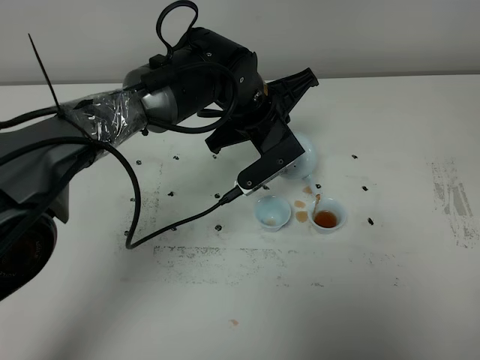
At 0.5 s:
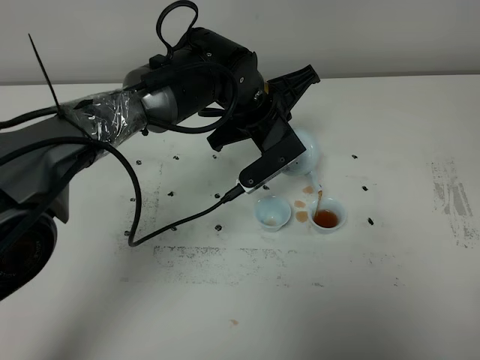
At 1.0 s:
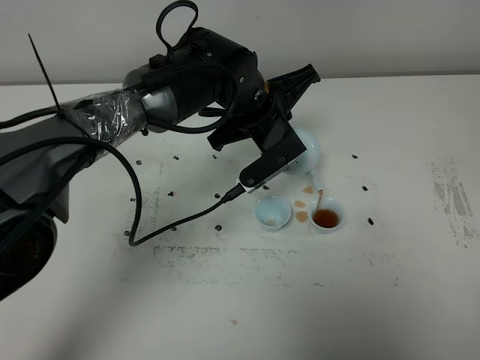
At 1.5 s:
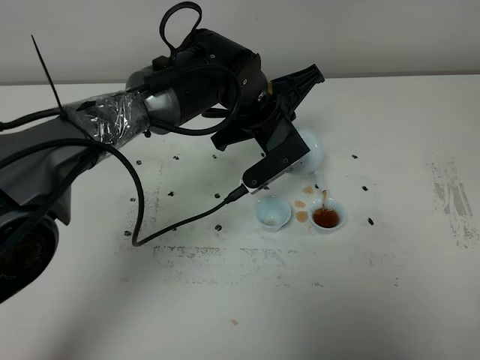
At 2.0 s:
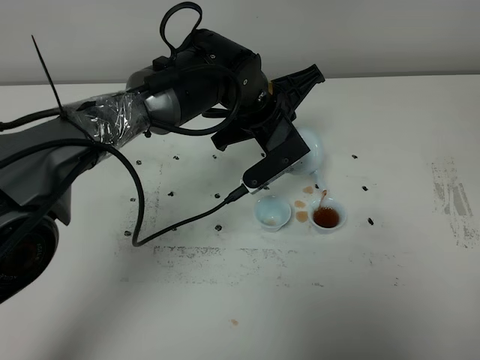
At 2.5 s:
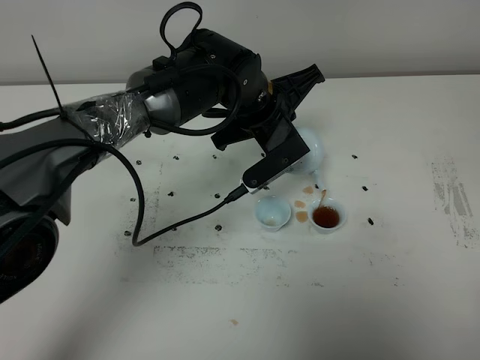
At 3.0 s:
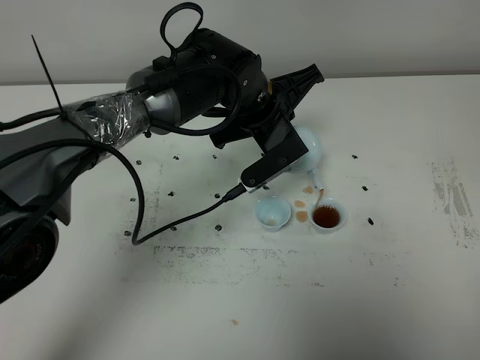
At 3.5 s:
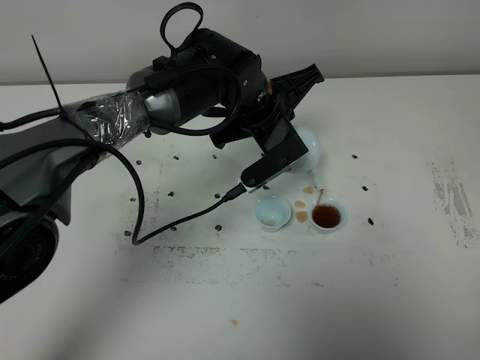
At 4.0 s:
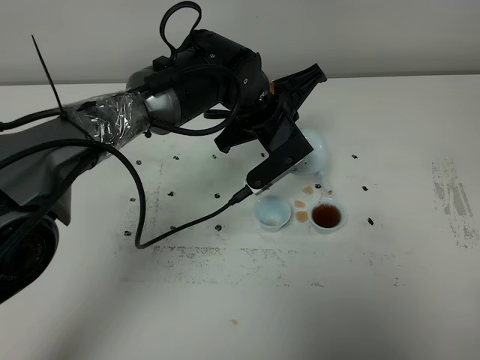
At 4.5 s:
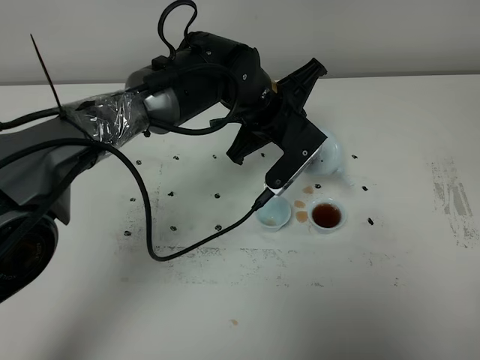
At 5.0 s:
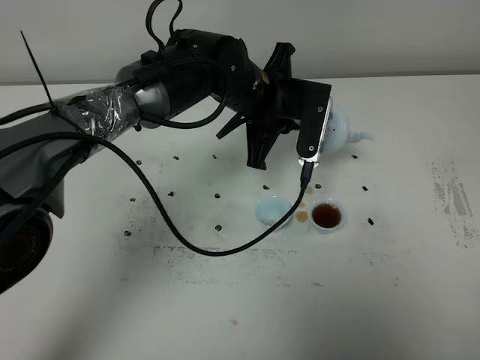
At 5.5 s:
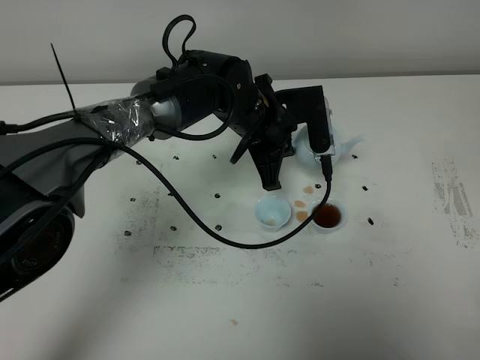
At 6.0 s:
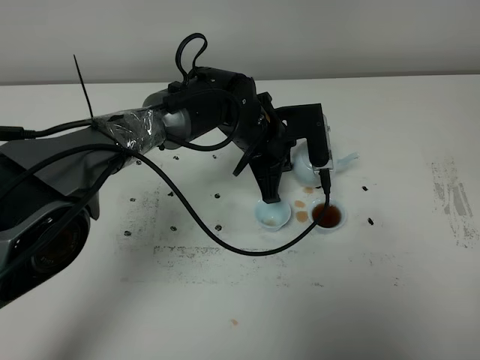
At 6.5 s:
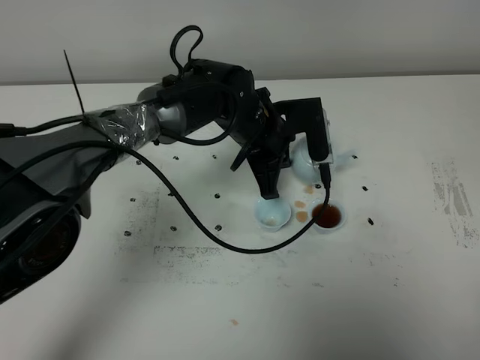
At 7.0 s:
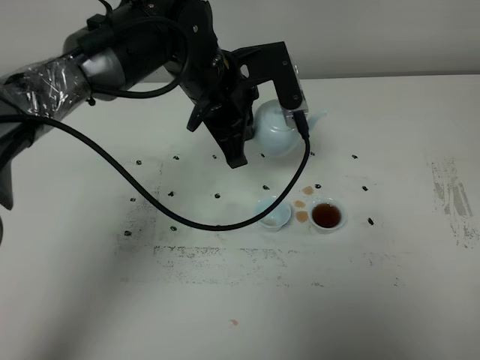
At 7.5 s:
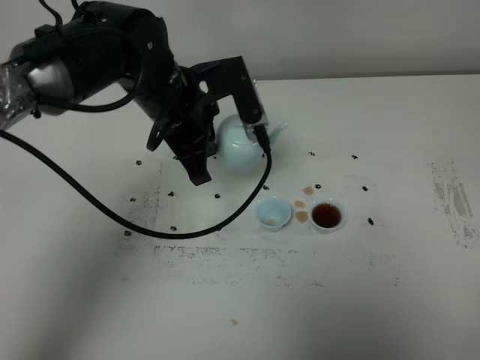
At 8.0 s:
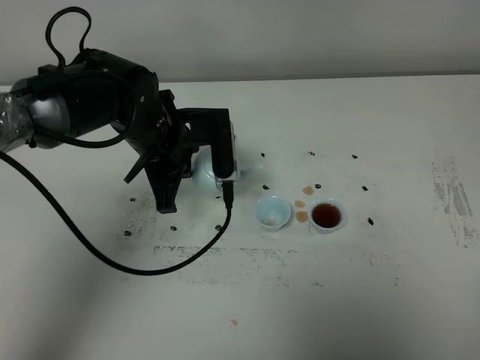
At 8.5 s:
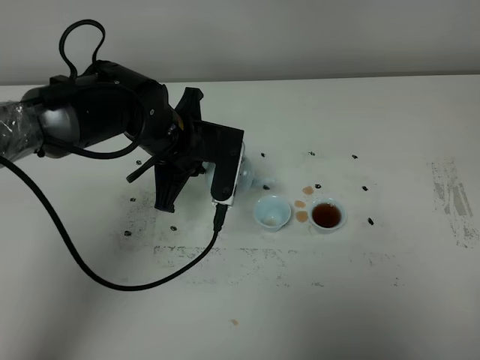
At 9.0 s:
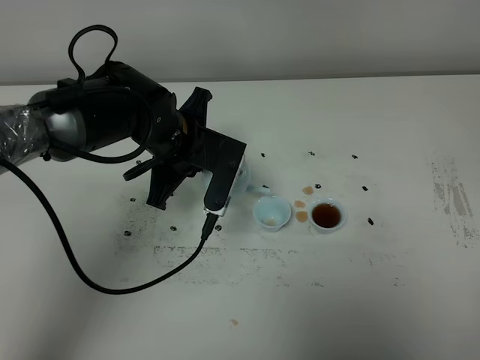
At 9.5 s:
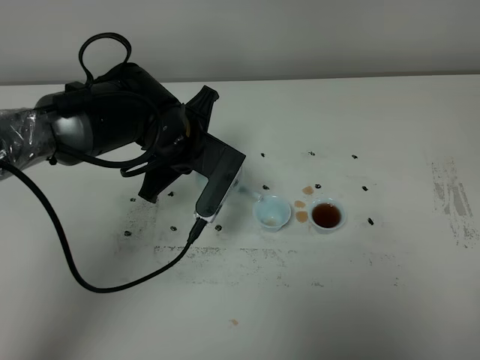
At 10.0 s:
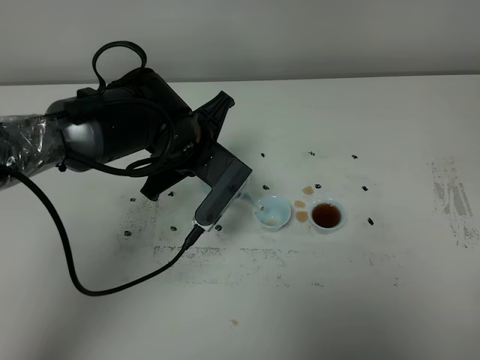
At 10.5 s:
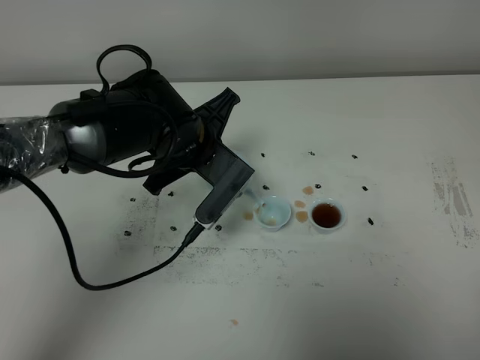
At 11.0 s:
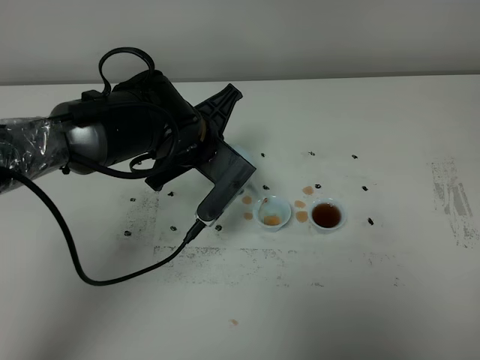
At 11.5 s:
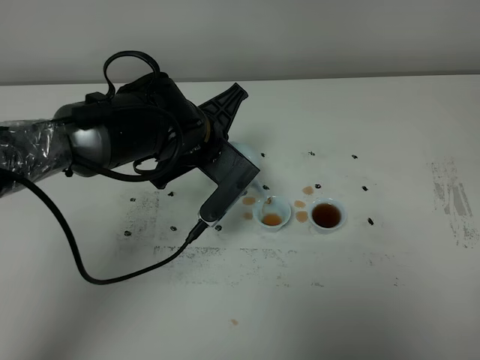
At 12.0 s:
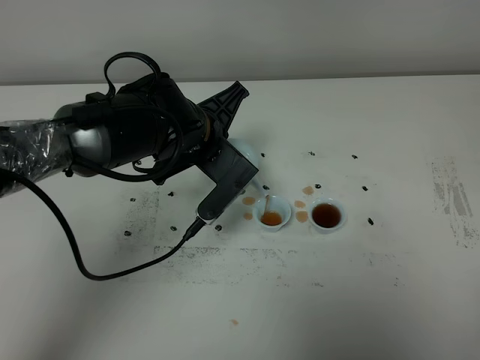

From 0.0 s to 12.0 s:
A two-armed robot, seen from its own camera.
Task of the whole recording: grasp the blue porcelain teapot and pour the tea into the two blue porcelain teacups one by one, put the blue porcelain teapot back in its original place.
From 0.0 s to 4.0 s: Neither gripper changes place.
From 4.0 s to 6.0 s: The left gripper heads downward, covering approximately 5 cm.
From 6.0 s to 8.0 s: The left gripper is displaced to the left by approximately 10 cm.
From 10.0 s to 12.0 s: There are only small adjustments of the grippers.

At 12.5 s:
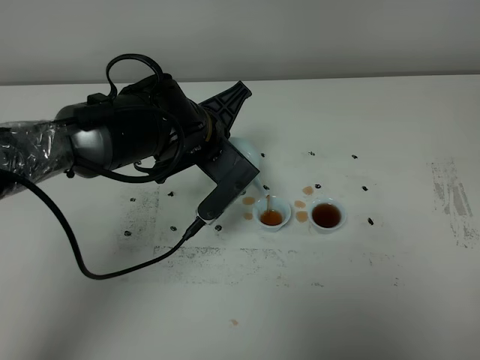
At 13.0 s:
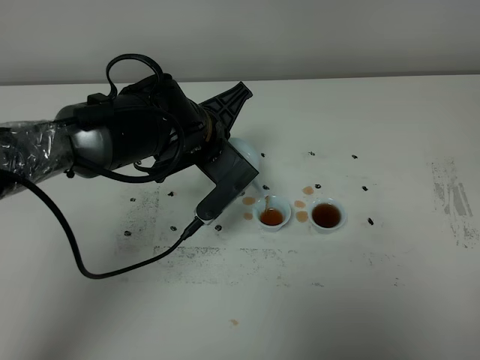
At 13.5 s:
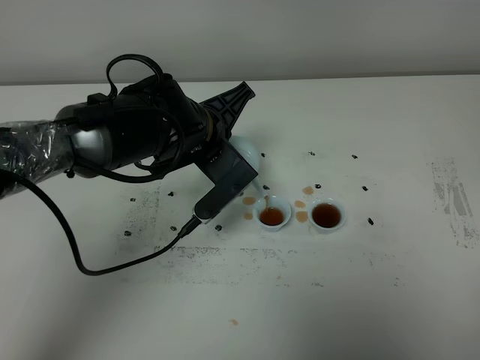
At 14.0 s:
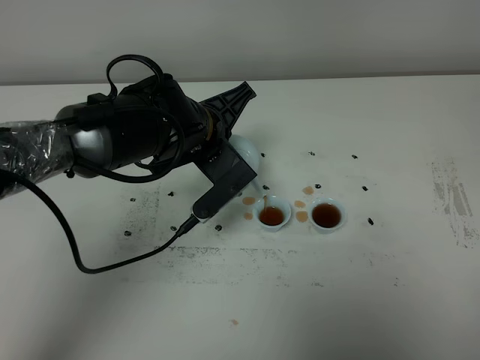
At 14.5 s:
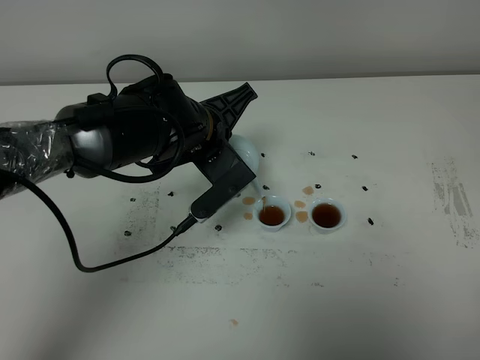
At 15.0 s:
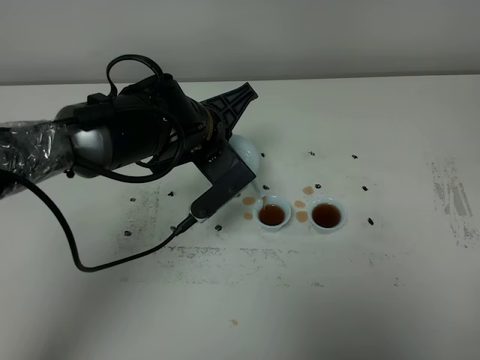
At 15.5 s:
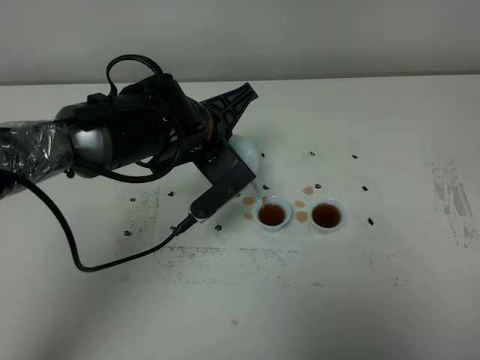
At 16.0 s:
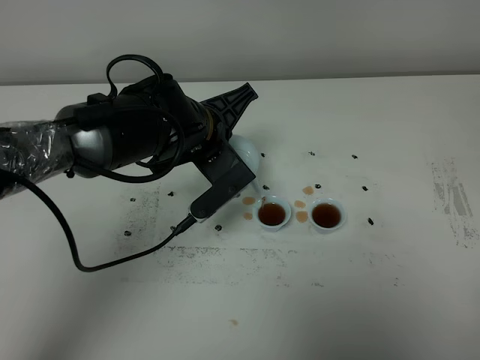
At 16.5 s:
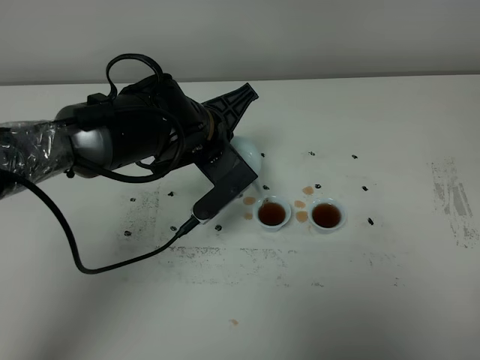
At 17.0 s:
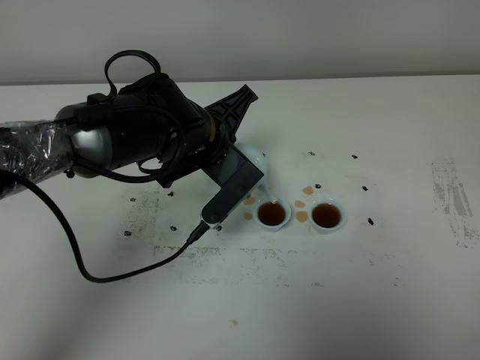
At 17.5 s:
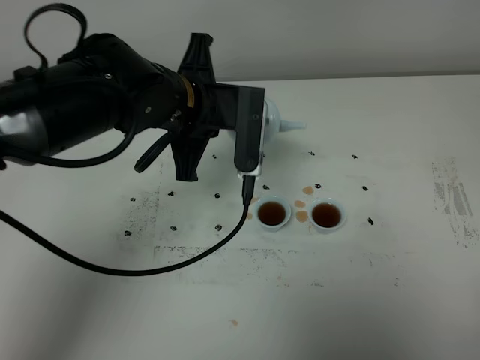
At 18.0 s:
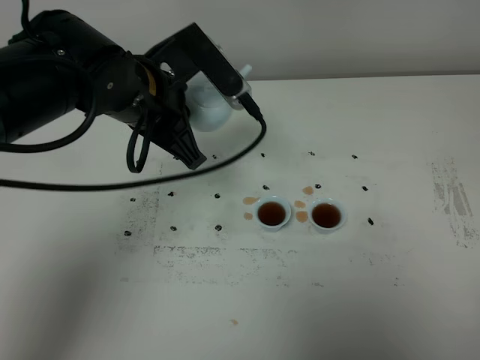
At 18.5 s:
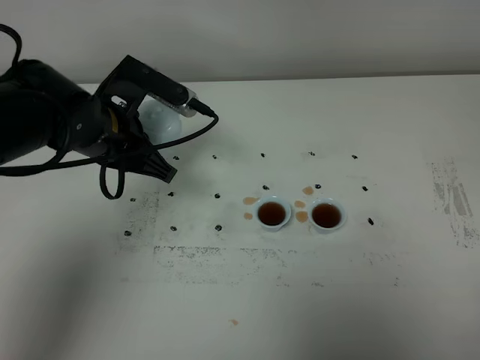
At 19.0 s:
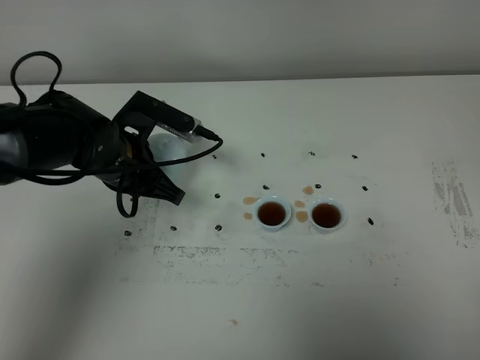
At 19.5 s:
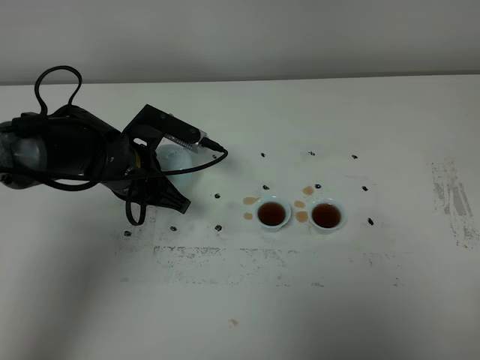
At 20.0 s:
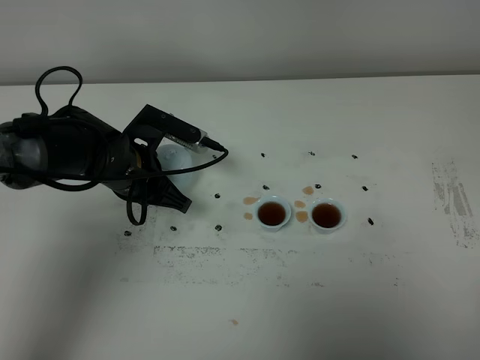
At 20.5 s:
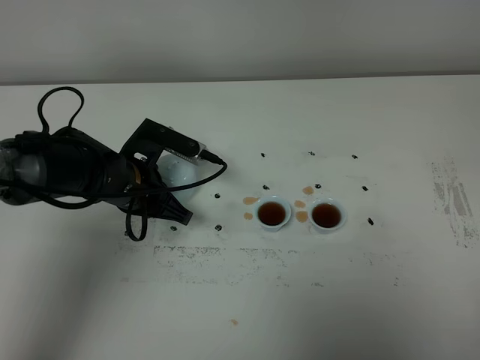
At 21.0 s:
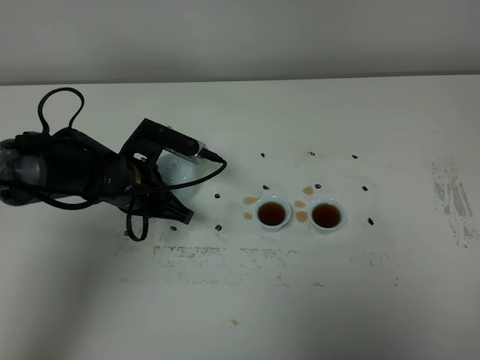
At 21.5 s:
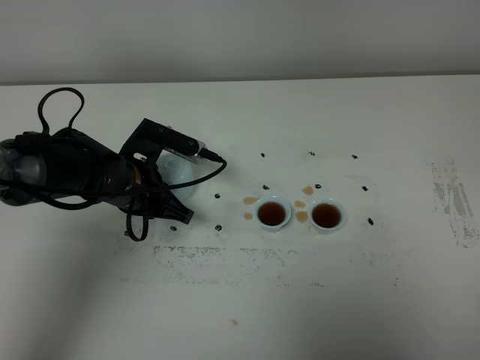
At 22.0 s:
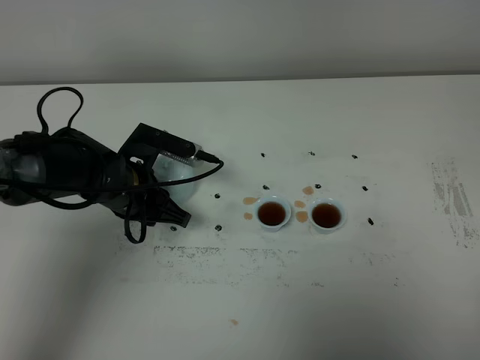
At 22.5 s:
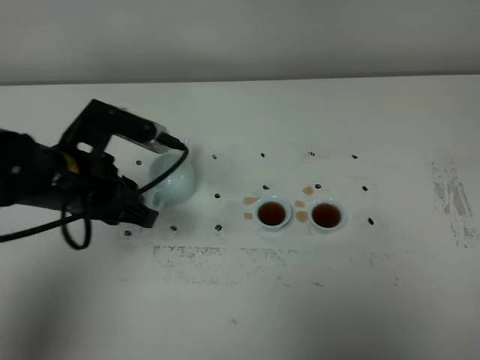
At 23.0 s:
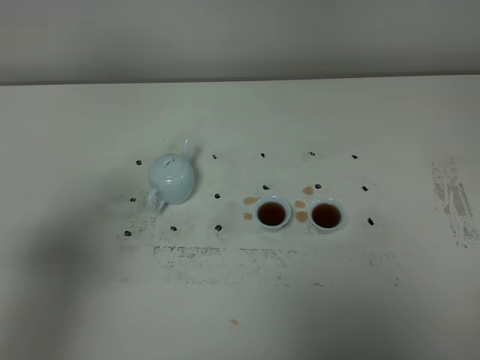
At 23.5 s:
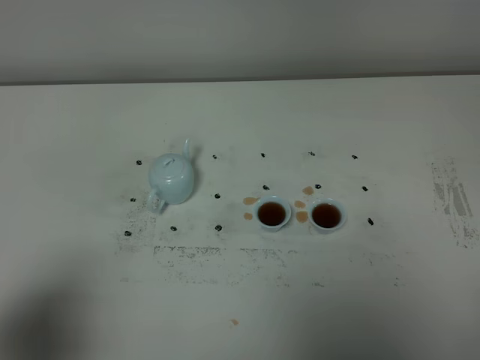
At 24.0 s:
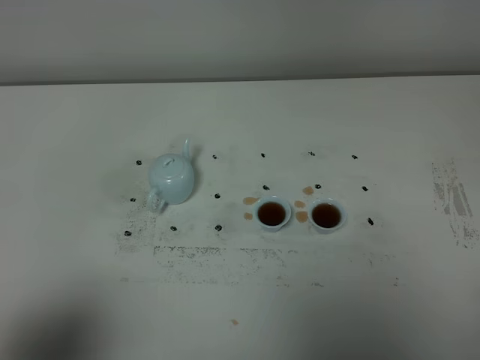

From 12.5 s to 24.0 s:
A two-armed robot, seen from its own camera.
Task of the whole recording: grasp the blue porcelain teapot and pour the tea into the two blue porcelain teacups one by one, put the blue porcelain teapot back in its original place.
From 12.5 s to 14.5 s: The grippers make only small movements.
From 14.5 s to 16.5 s: The two grippers keep their place.
From 16.5 s to 18.5 s: The left gripper heads to the left, covering some 10 cm.
From 18.5 s to 20.0 s: The left gripper goes approximately 10 cm downward.
From 20.0 s to 22.0 s: The grippers make only small movements.
From 22.0 s to 24.0 s: The left gripper is displaced backward and upward by approximately 35 cm.
